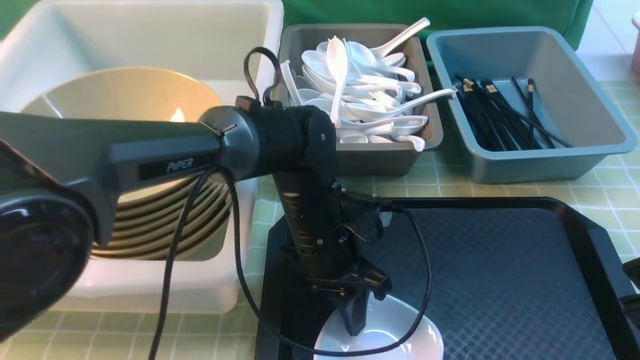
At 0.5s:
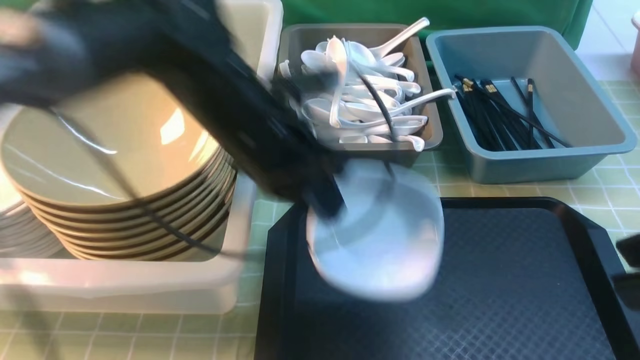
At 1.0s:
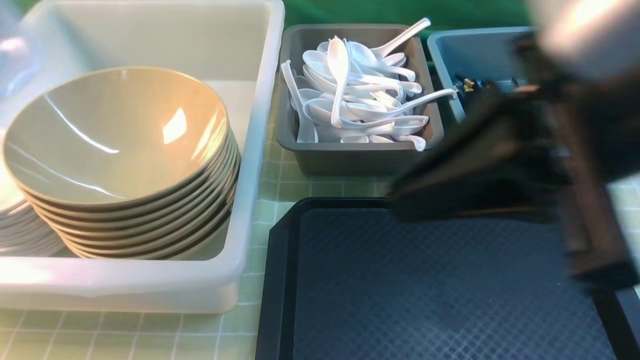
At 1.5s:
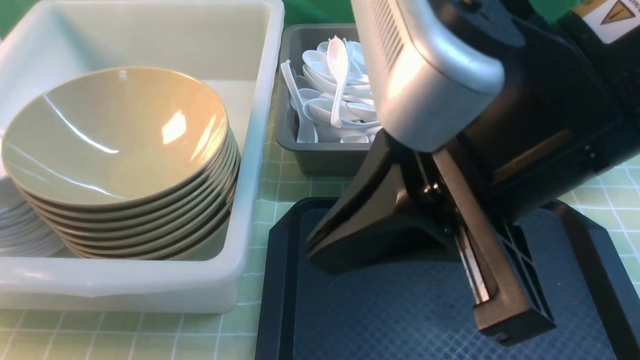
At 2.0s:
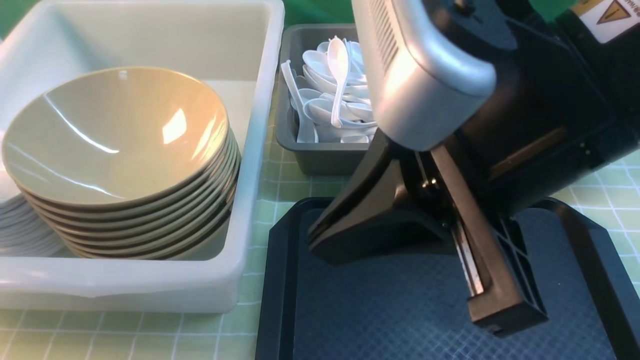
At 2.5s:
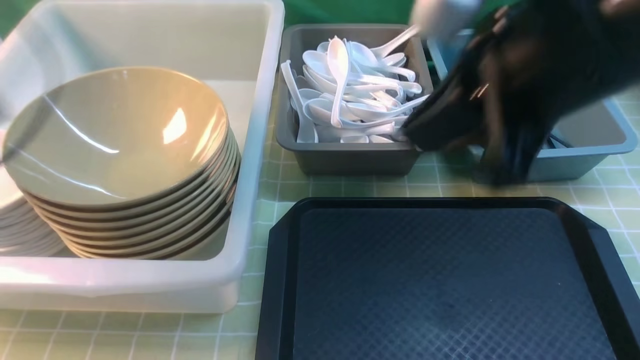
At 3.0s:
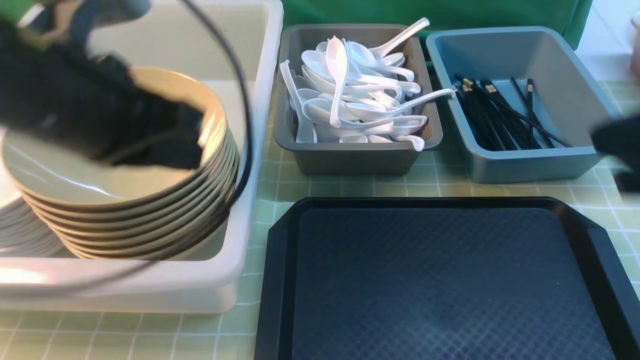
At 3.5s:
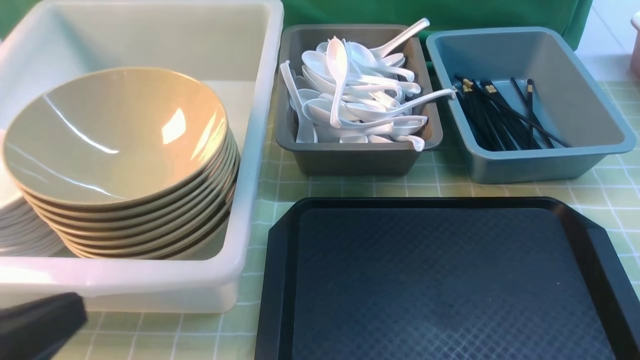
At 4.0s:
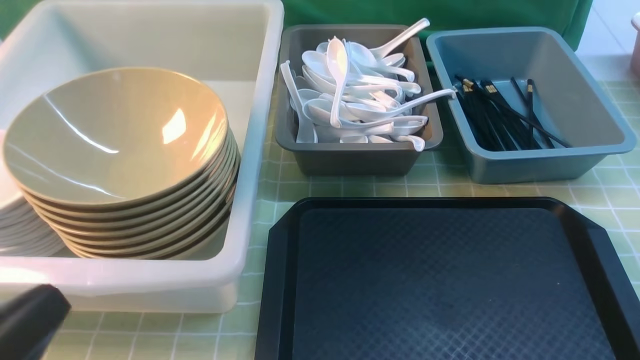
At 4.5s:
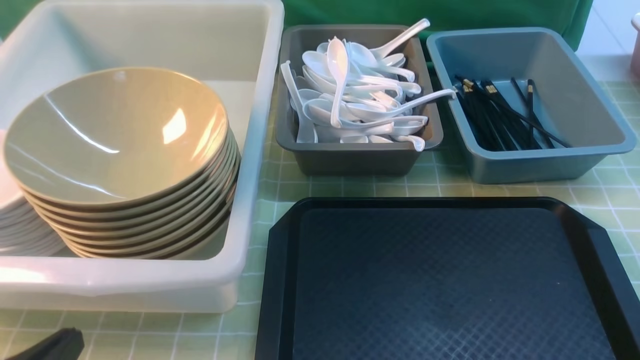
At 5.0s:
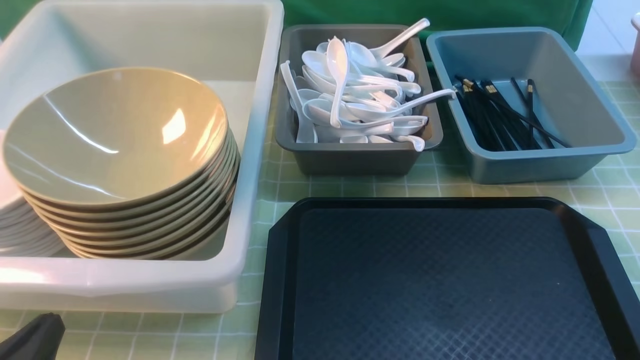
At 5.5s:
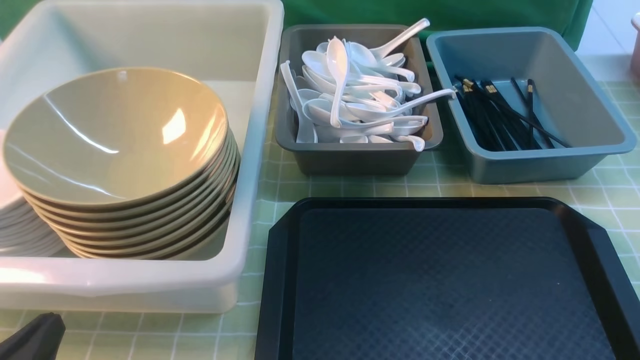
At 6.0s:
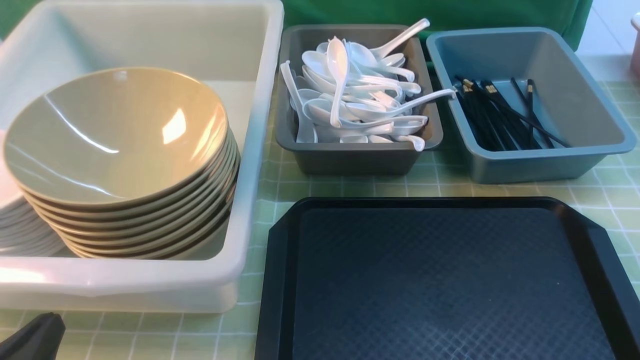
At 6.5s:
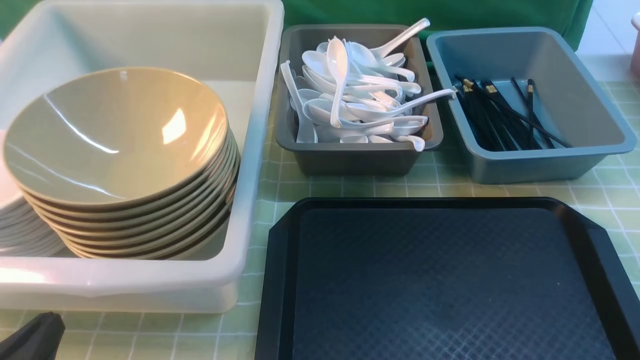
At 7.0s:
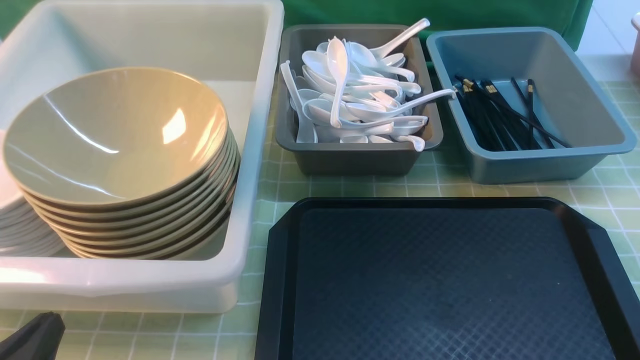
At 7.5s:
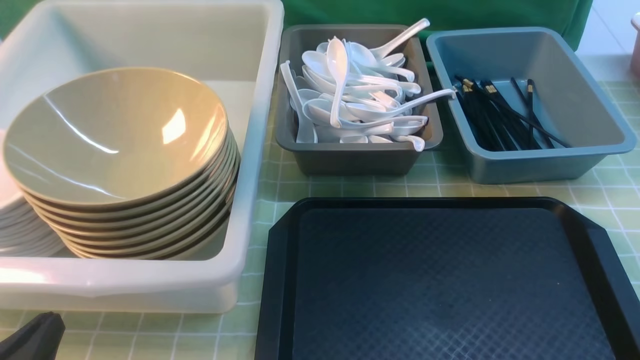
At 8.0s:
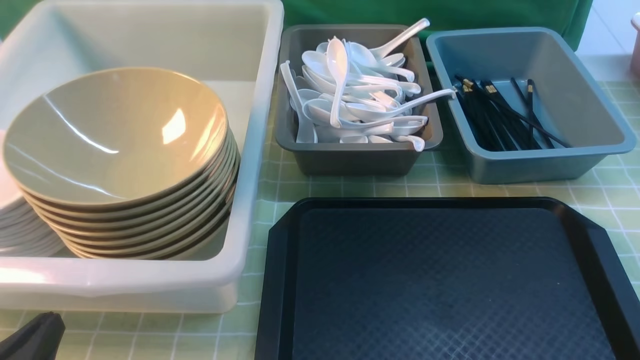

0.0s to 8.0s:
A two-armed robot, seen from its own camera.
Task of the whole recording: on green table put chopsticks spoon bowls plates into blue grey white boxes.
Step, 0.5s to 2.0s: use the left arm to put the plate into the large storage box on the left.
0.0s to 2.0s: The left gripper moves to the left, some 40 cm, while the right gripper moves to the left and forward, about 15 cm, and closes its fingers.
2.0s to 4.0s: The left gripper is displaced backward and to the right by about 30 cm, and closes up; the right gripper goes roughly 30 cm to the right, downward and backward.
4.0s to 6.0s: The left gripper goes roughly 10 cm downward.
